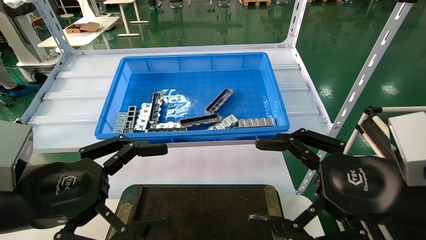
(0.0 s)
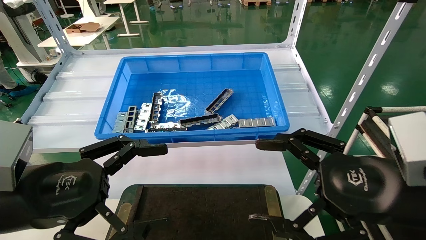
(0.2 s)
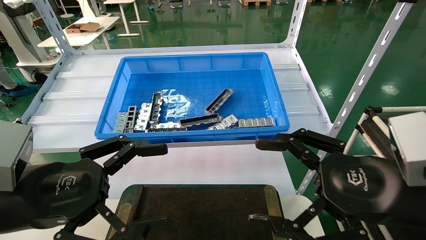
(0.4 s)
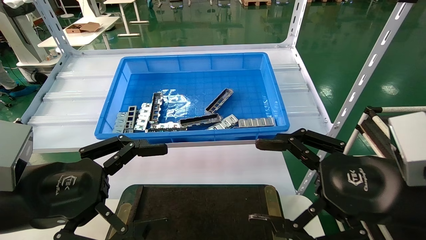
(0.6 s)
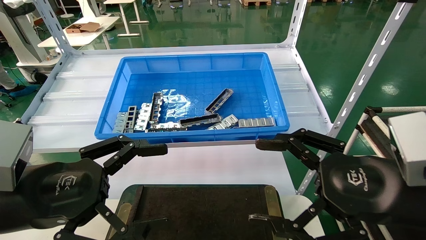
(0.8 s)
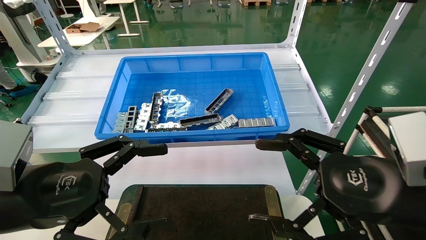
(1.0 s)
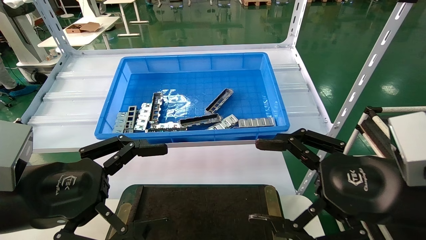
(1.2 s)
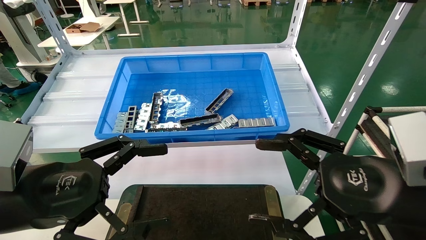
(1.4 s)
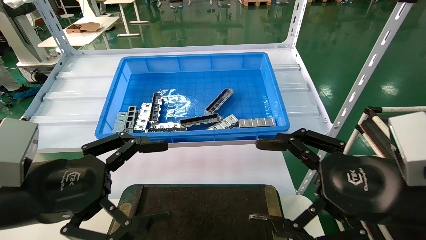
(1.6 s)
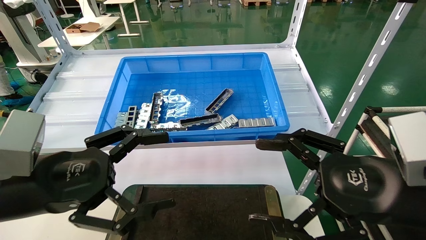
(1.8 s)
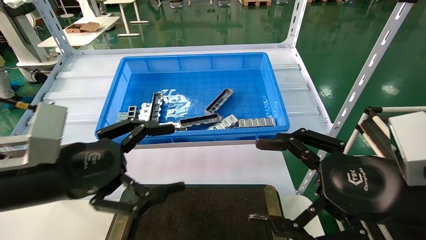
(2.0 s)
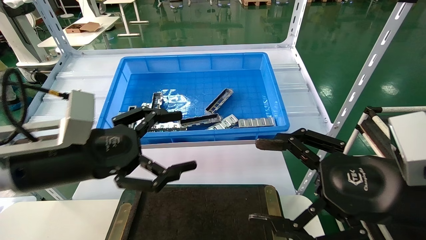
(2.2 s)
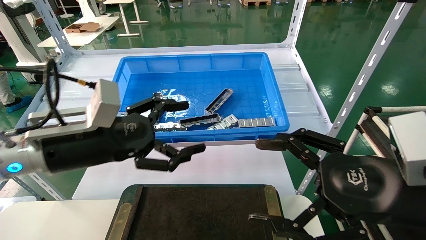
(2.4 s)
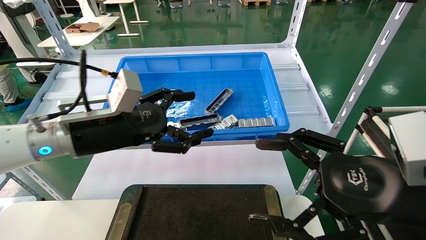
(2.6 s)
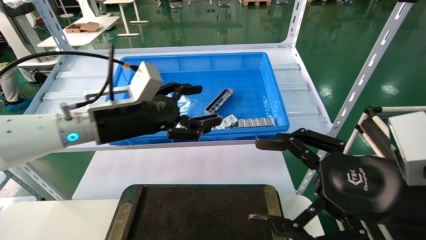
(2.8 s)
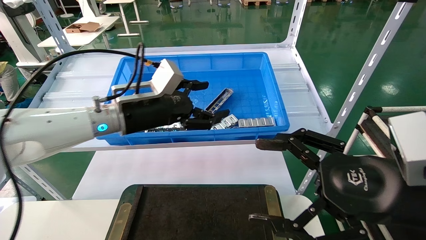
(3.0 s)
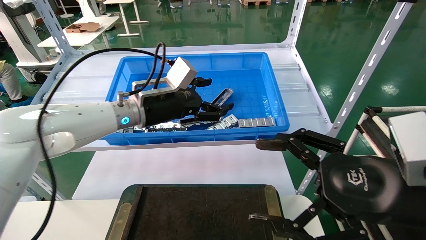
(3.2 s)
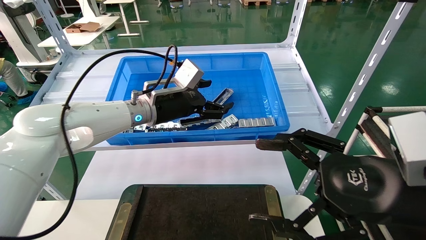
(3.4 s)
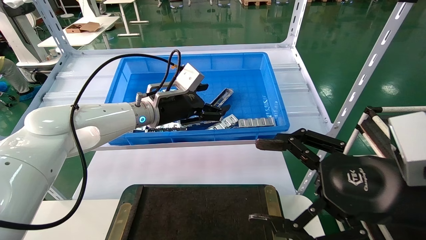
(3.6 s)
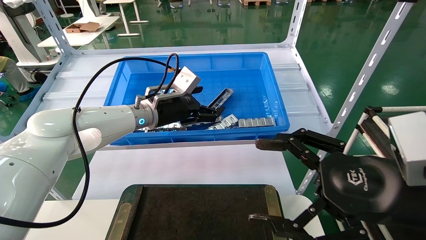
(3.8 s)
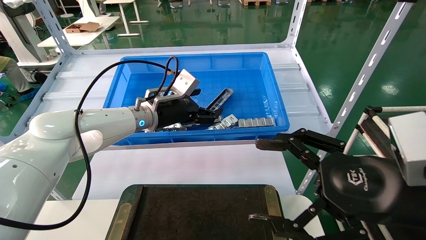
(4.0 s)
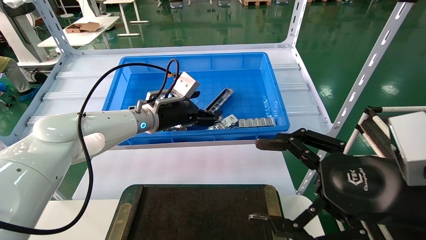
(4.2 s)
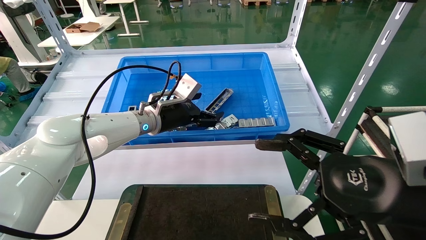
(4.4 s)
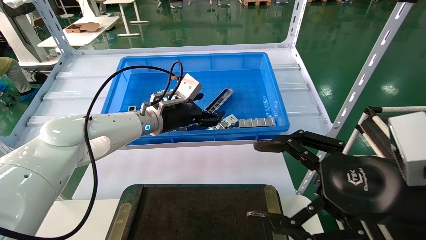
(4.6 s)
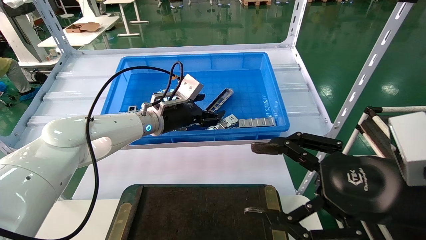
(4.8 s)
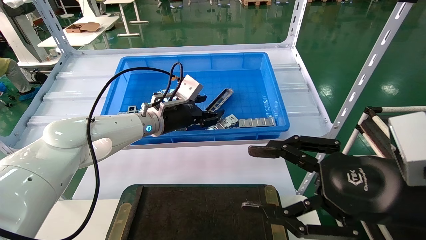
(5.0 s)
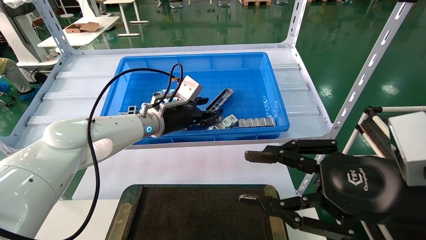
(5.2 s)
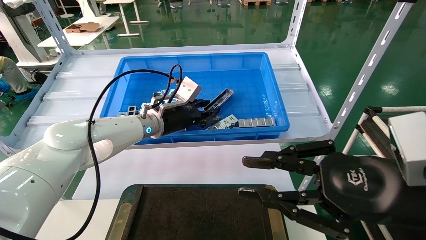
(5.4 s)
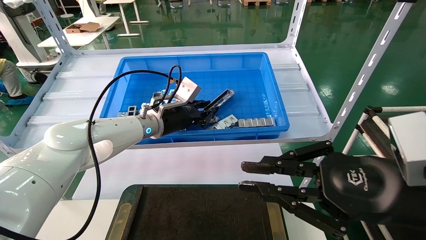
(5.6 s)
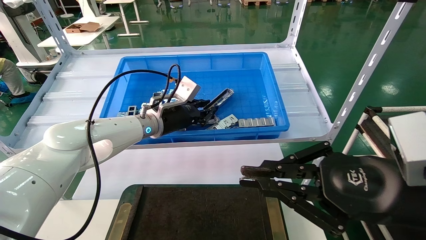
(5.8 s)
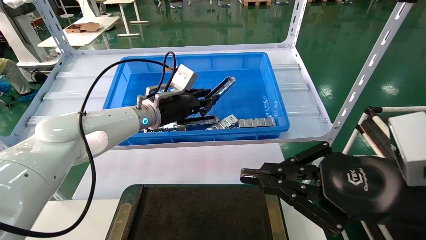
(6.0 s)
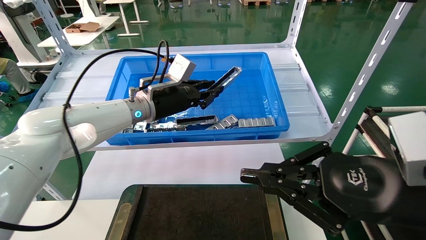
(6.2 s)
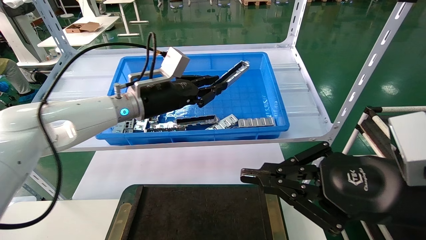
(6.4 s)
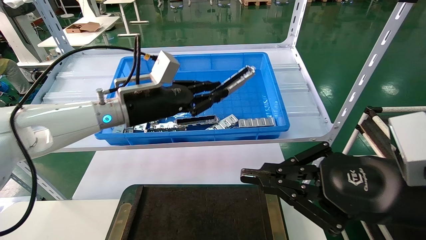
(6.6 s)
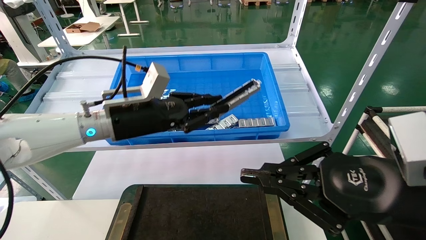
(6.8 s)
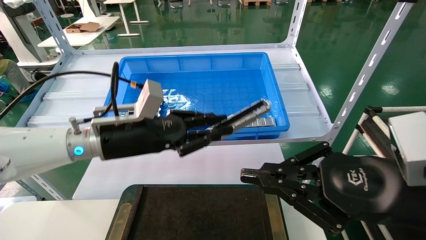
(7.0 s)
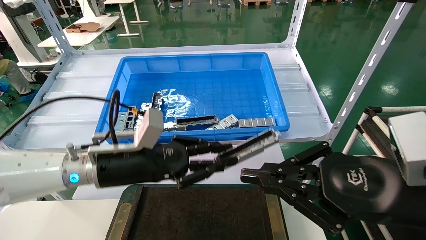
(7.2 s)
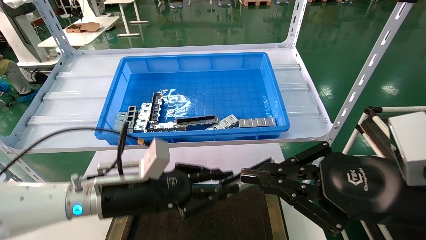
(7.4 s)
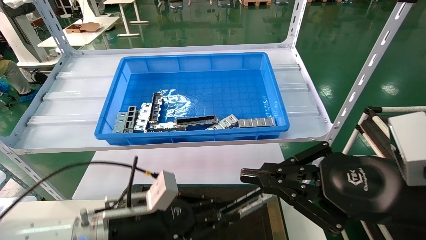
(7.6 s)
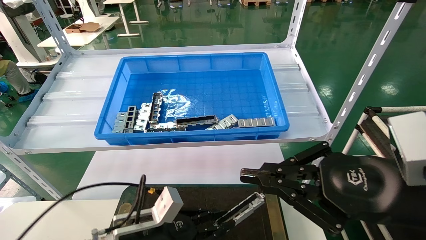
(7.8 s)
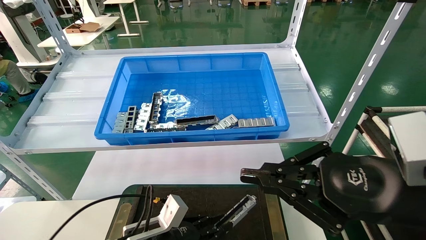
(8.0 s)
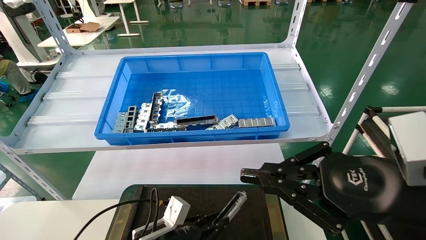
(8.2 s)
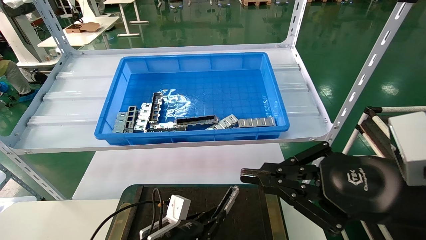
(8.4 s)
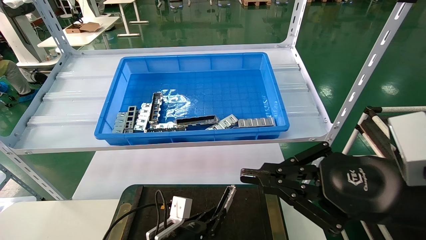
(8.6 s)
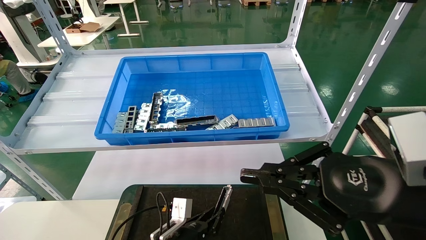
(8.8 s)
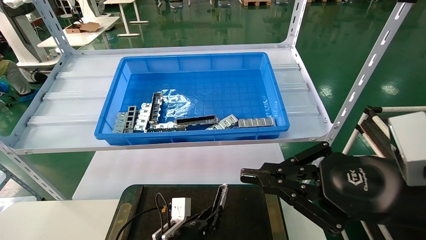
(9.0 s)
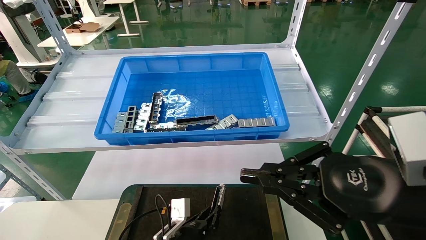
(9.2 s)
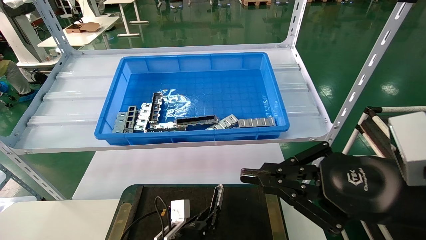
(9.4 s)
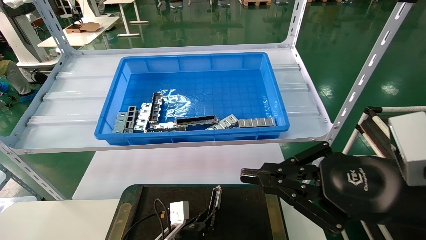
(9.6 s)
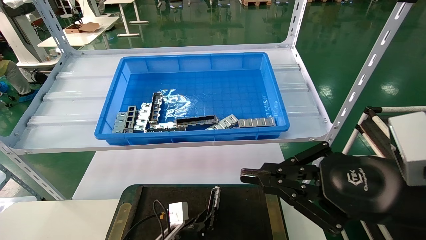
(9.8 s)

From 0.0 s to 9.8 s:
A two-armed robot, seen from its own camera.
Task of the whole recording: Grasp the part with one hand and place it on the black container.
Step, from 1.8 s to 5.4 s: Pick up the front USB bracket from the feeding area.
From 0.0 s to 1.4 s: Both grippers stay put.
From 1.4 s to 2.8 s: The left gripper travels forward and to the right by approximately 20 cm.
From 2.8 s to 4.2 s: The left gripper is displaced forward and to the right by roughly 15 cm.
From 4.2 s to 5.6 s: The left gripper closes up; the right gripper closes.
From 5.6 s to 7.0 s: The left gripper heads backward, covering approximately 15 cm.
From 7.0 s to 8.4 s: The left gripper travels downward by about 25 cm.
From 8.4 s to 9.8 s: The left gripper travels downward by approximately 5 cm.

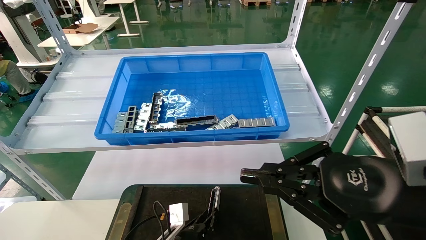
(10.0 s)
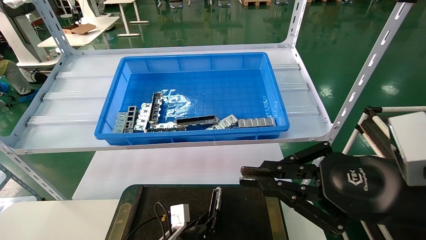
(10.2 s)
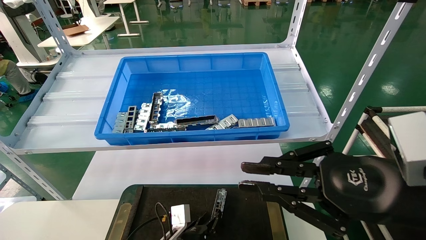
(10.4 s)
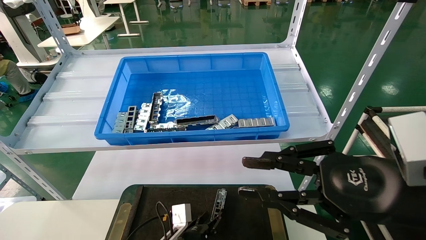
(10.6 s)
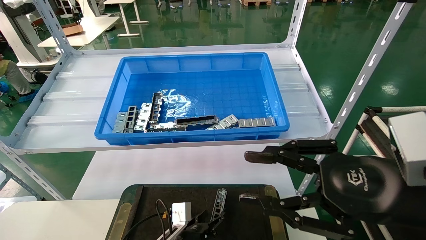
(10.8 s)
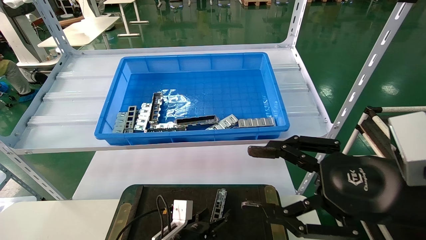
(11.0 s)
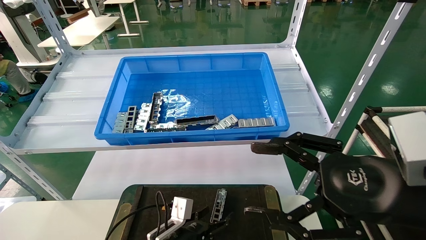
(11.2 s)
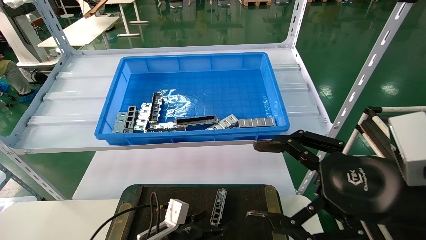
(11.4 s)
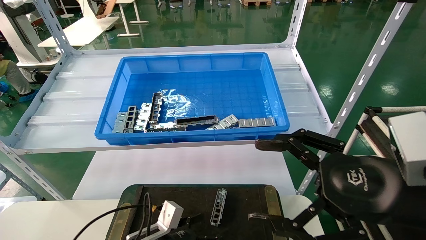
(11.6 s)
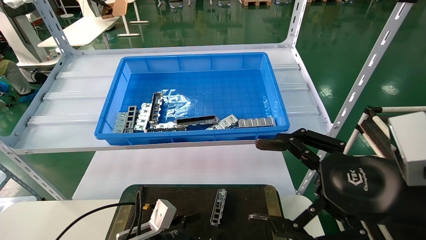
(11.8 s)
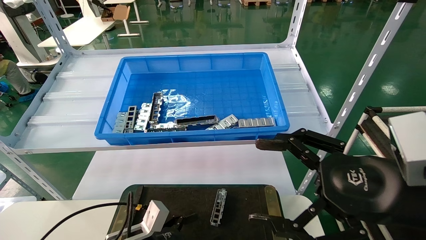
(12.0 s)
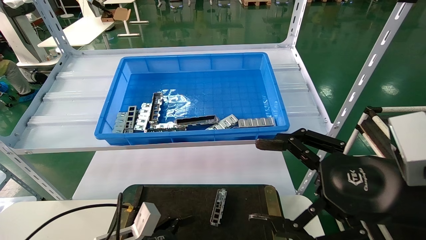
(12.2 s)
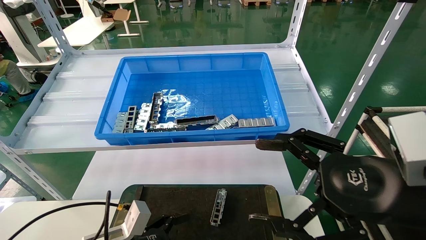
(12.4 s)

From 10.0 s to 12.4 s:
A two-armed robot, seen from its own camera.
Task of the whole recording: Grasp the part with one hand and place it on the black container.
From 10.0 s to 11.2 s: The left gripper shifts by some 5 cm, and opens its fingers. The right gripper opens.
From 11.2 s to 12.4 s: The left gripper goes some 15 cm to the left, backward and upward.

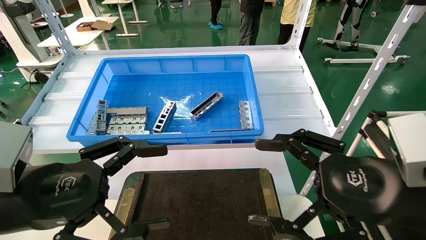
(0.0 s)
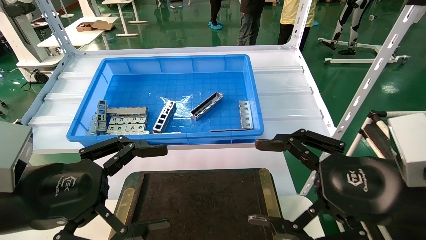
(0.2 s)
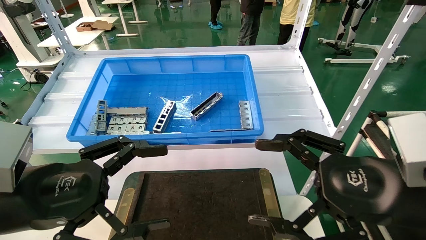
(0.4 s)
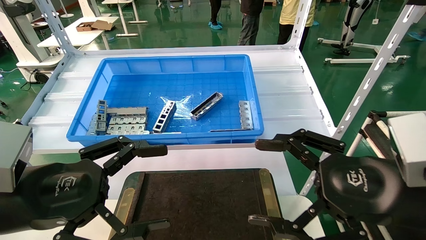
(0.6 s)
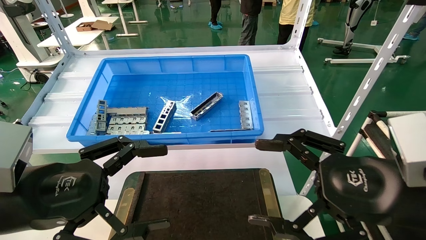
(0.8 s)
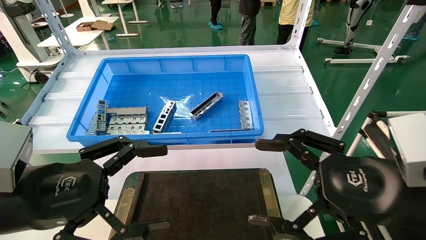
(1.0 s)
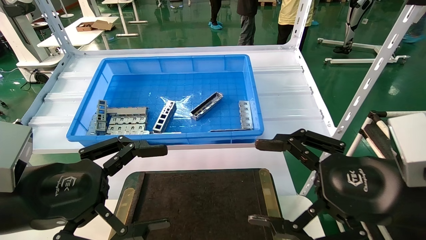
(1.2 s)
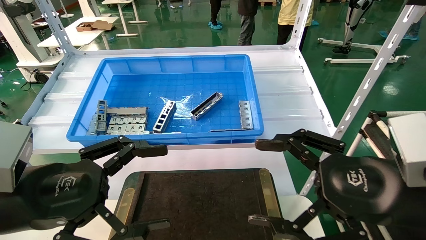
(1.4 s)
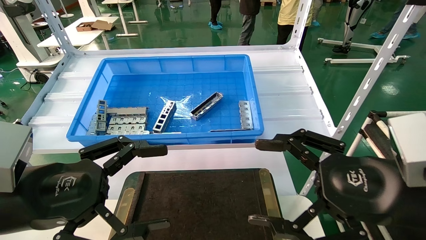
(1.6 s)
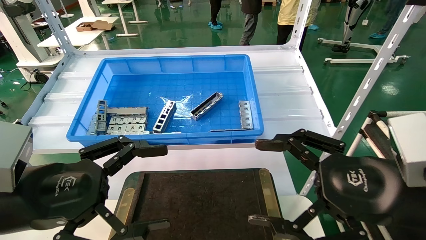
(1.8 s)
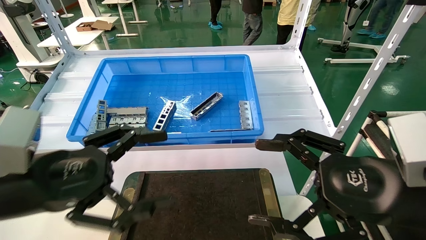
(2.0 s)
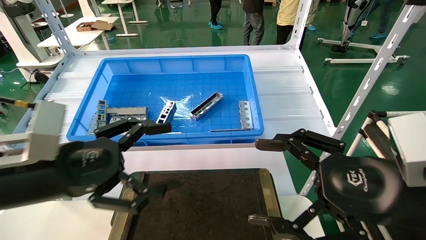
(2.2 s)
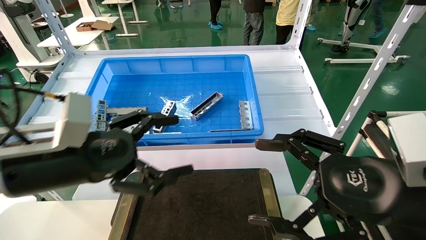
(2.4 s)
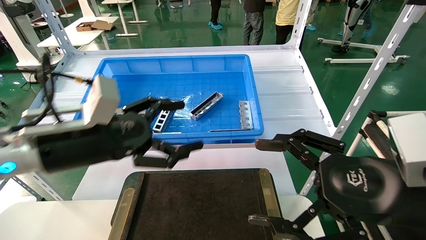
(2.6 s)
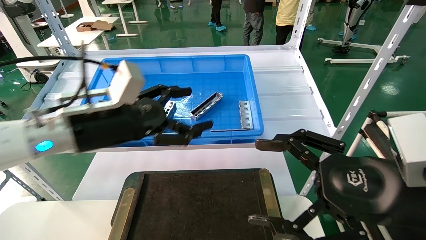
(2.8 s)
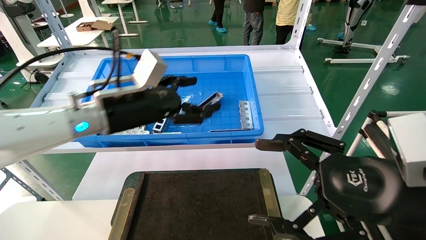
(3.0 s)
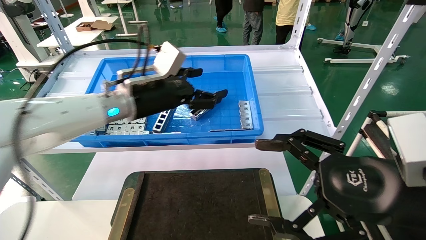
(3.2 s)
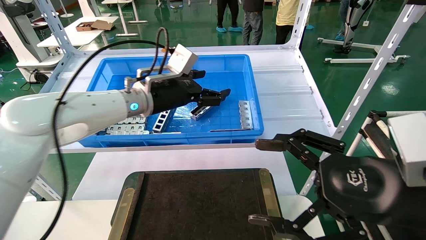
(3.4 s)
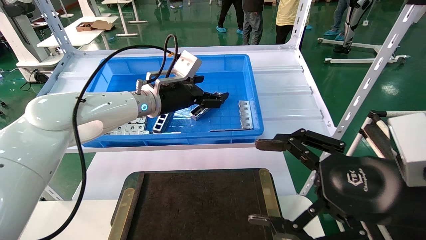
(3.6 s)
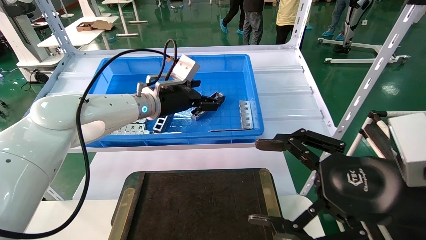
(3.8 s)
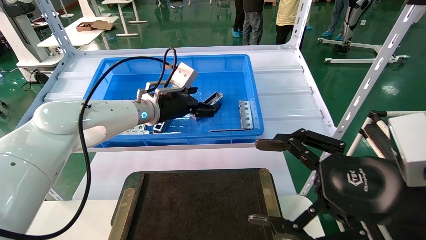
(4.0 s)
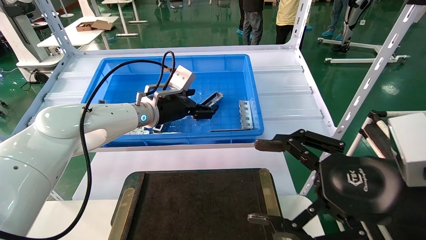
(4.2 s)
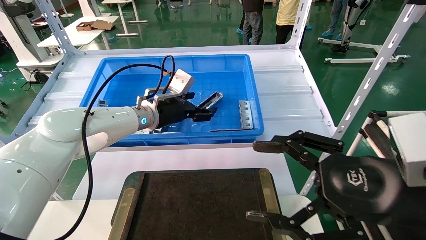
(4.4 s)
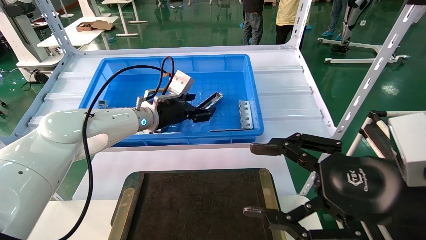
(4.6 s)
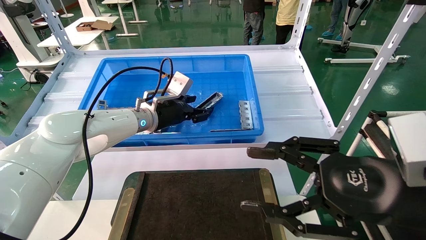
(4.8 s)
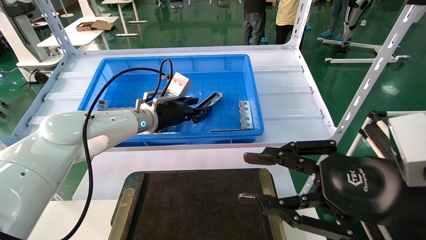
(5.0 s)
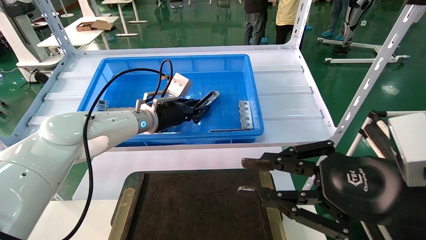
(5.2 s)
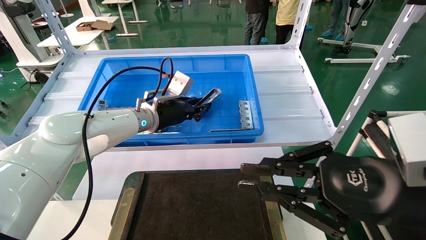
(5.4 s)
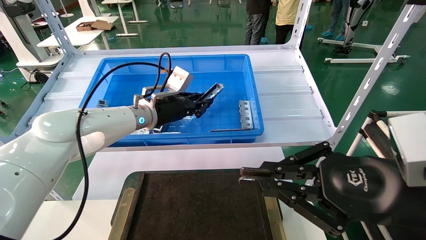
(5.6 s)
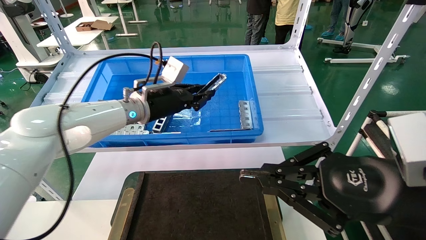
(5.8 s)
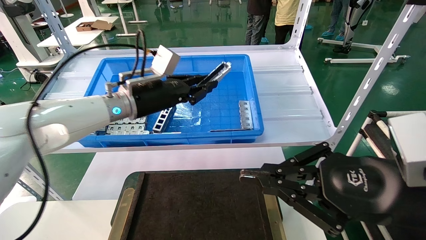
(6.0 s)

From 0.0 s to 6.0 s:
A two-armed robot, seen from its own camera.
Task of the whole recording: Grasp the part with one hand and place it on the black container.
Step, from 1.6 s to 6.0 s: Pick up the front USB bracket from the feeding area.
From 0.0 s to 1.6 s: Both grippers stay put.
From 1.6 s to 3.0 s: The left gripper is displaced forward and to the right by some 20 cm.
From 3.0 s to 4.4 s: The left gripper heads forward, covering some 10 cm.
From 4.4 s to 6.0 s: The left gripper heads backward, covering roughly 5 cm, and closes; the right gripper closes.
